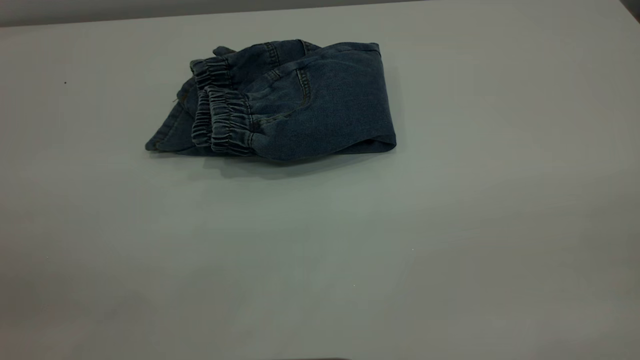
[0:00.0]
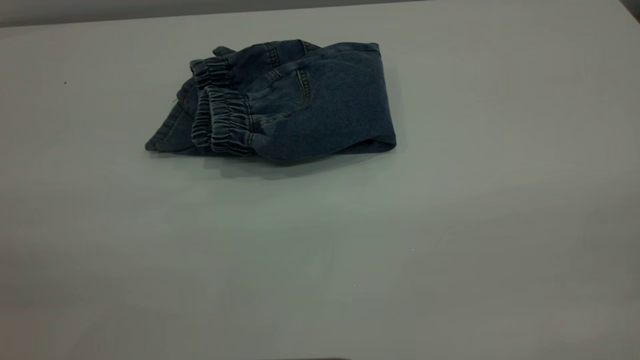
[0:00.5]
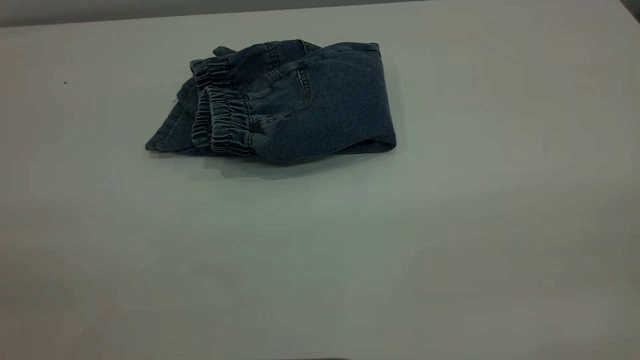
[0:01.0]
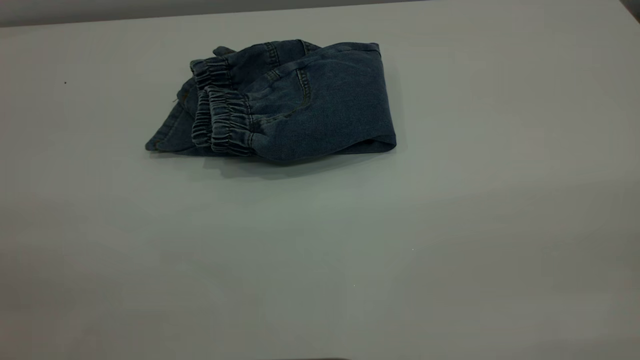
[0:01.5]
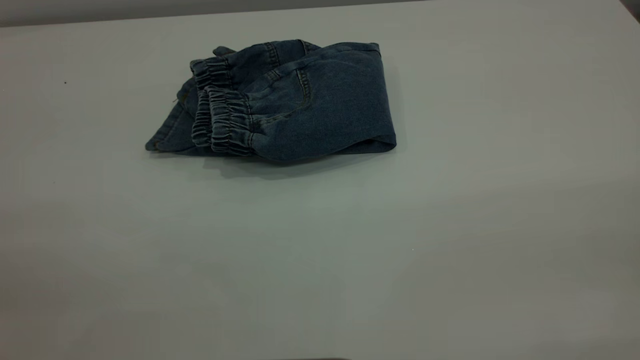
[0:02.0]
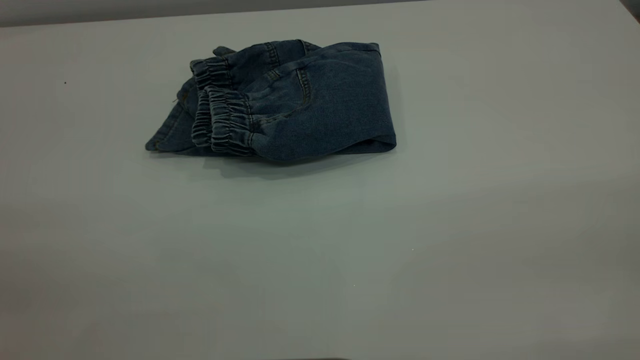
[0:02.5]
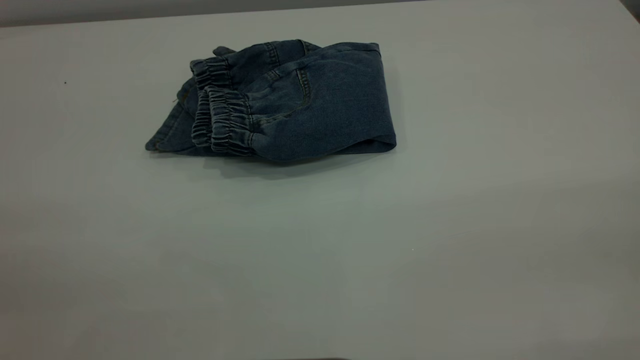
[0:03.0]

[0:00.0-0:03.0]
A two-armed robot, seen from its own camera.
0:01.5 to 0:03.0: Neither gripper changes place.
